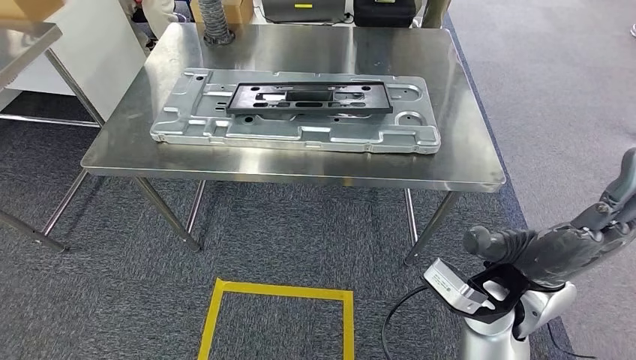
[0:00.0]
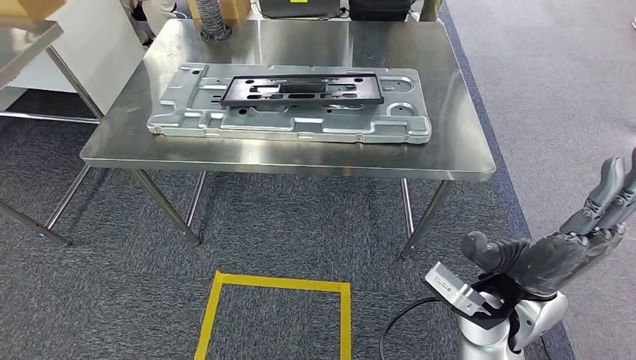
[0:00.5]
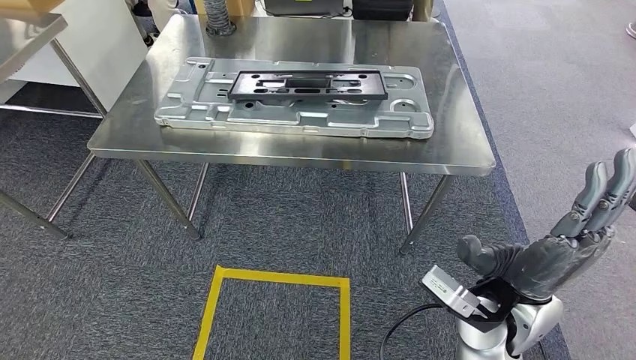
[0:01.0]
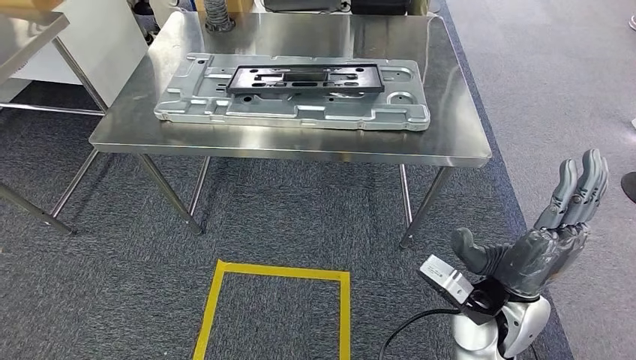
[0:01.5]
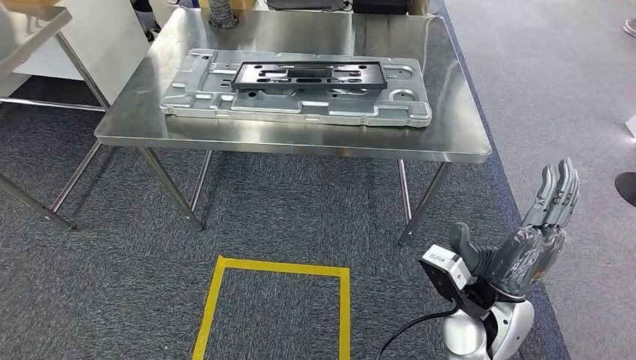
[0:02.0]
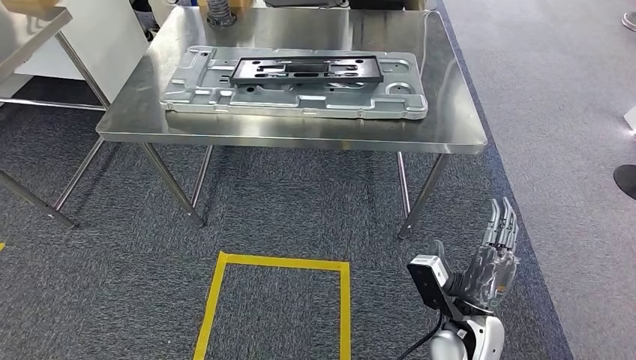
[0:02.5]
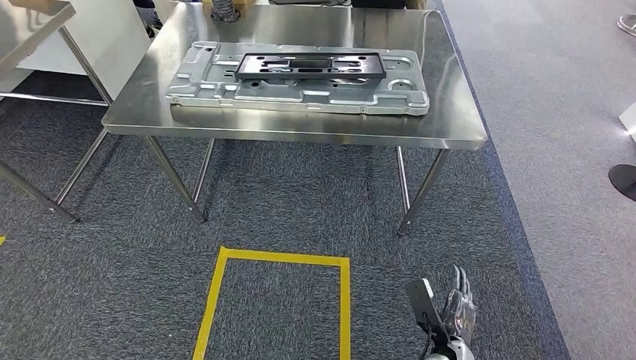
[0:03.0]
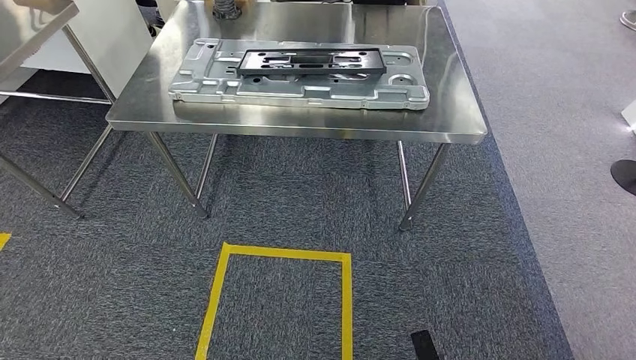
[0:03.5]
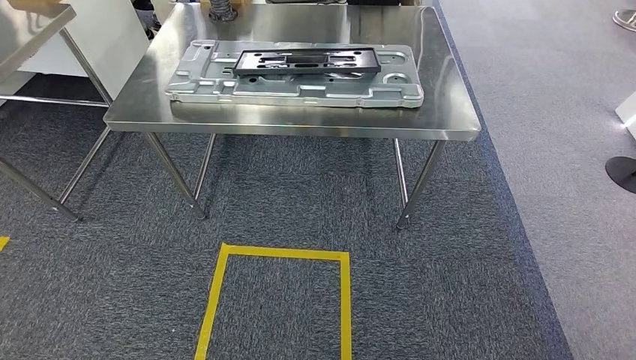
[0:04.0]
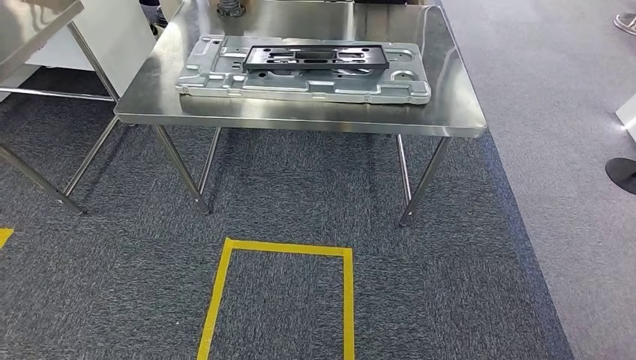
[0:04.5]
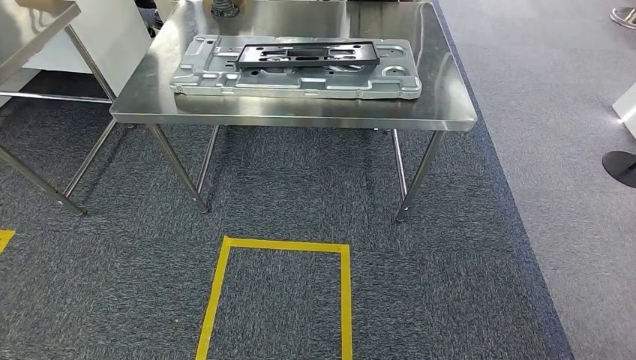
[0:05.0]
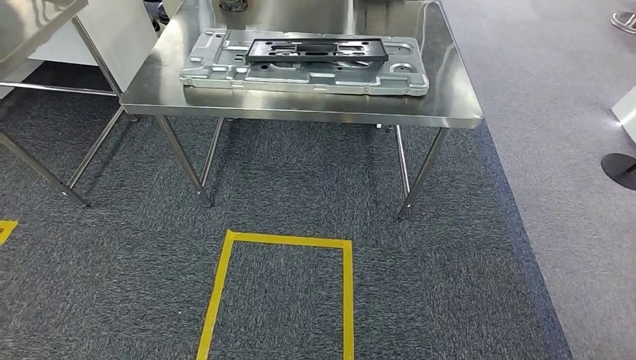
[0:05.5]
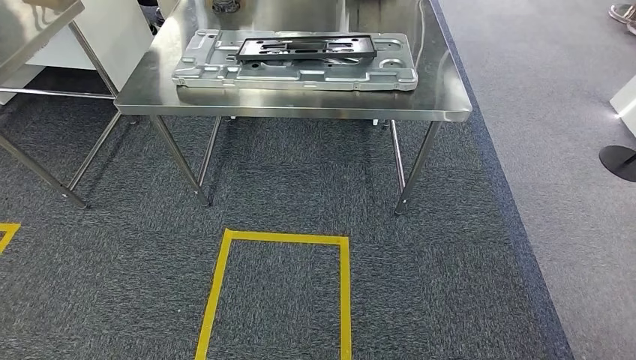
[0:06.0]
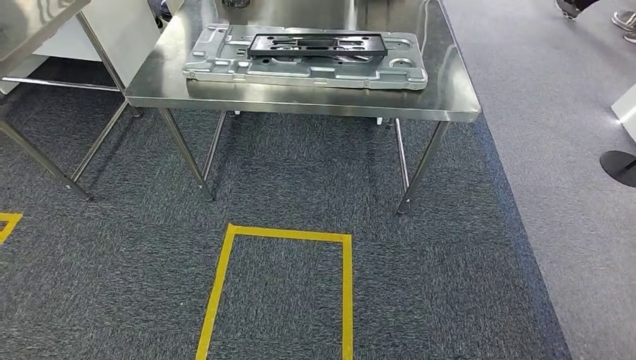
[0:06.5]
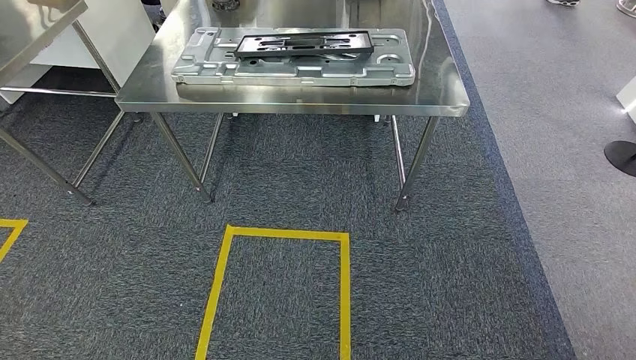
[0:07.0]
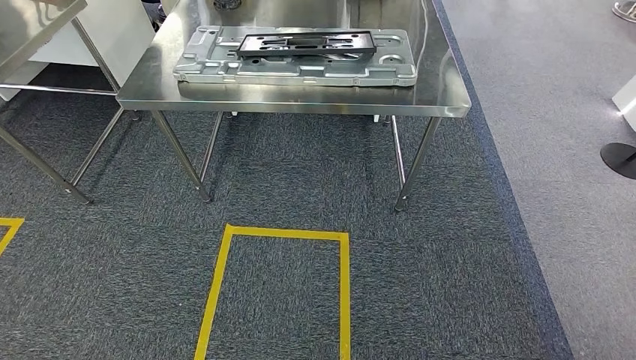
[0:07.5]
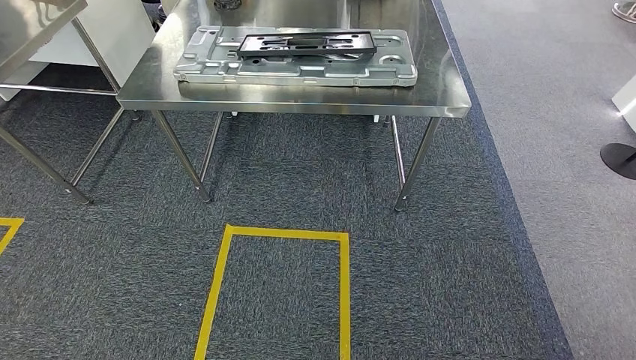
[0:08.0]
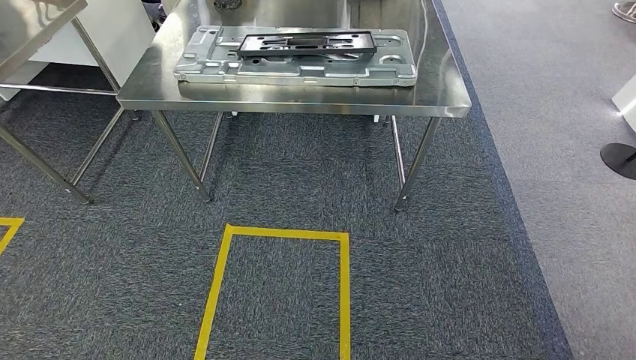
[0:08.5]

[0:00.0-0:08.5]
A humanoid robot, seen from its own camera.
Step, 0:00.0 to 0:08.5: Move to the initial position of the shelf.
0:06.5 to 0:08.5: The hands stay close to where they were, moving slightly.
